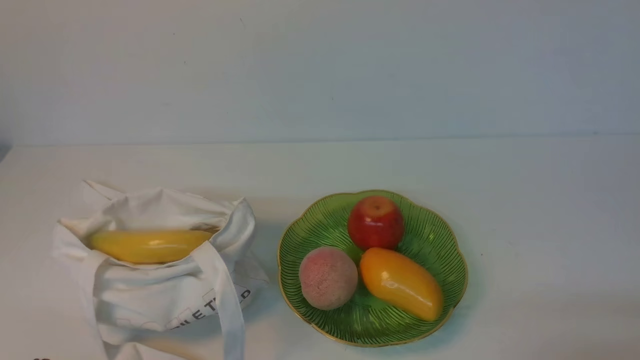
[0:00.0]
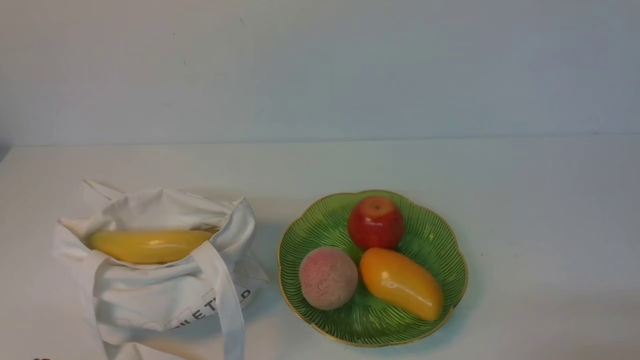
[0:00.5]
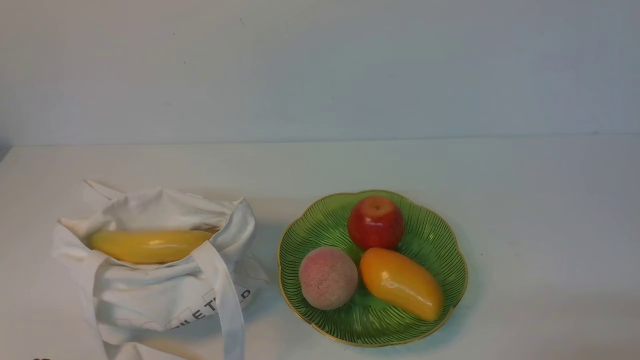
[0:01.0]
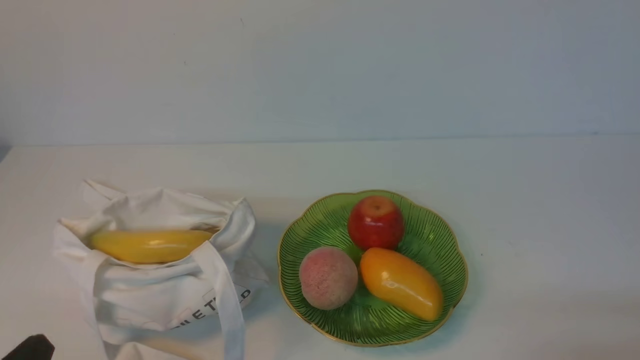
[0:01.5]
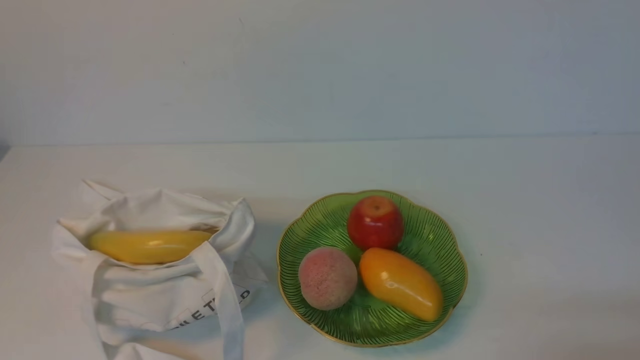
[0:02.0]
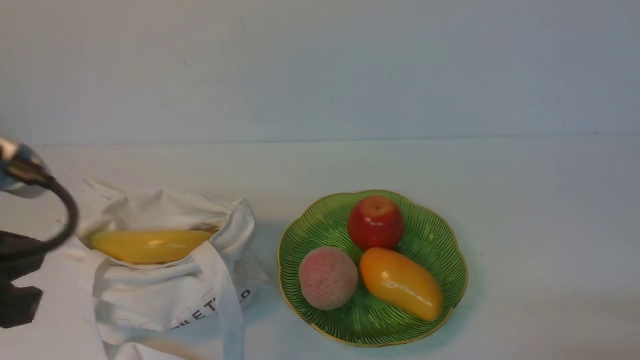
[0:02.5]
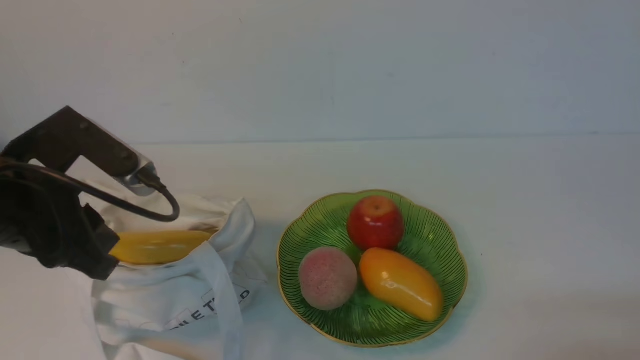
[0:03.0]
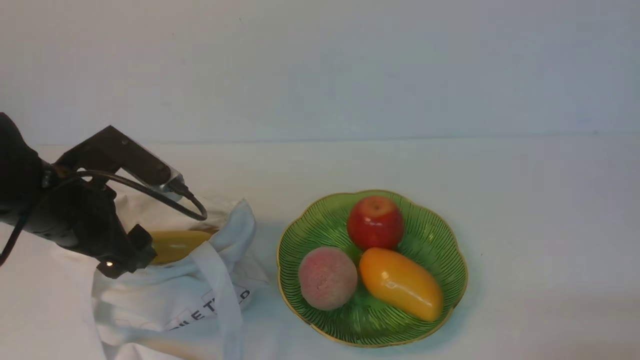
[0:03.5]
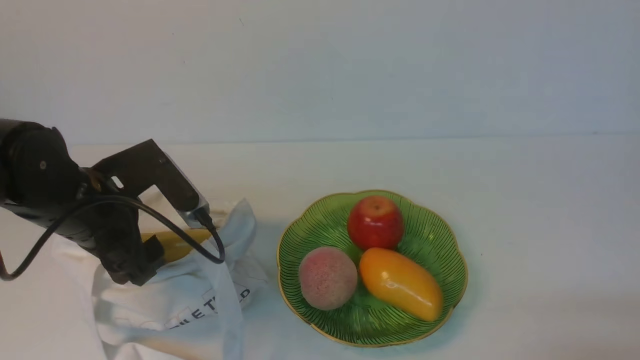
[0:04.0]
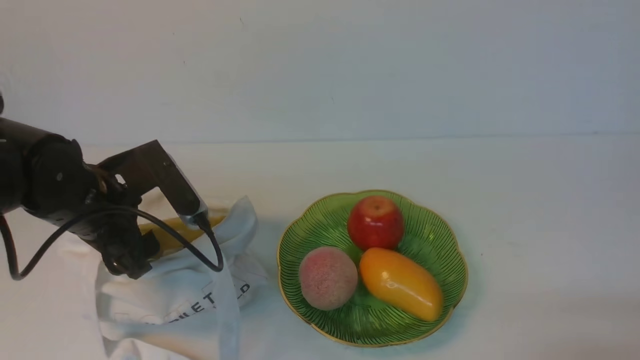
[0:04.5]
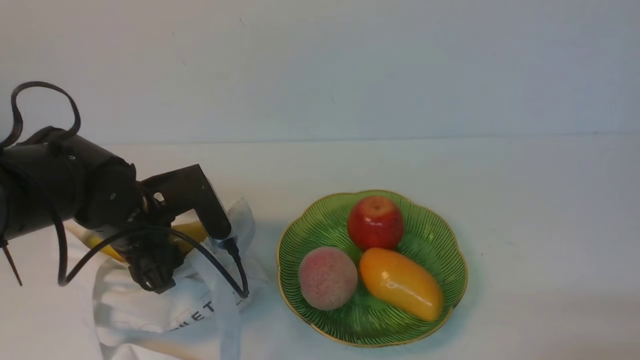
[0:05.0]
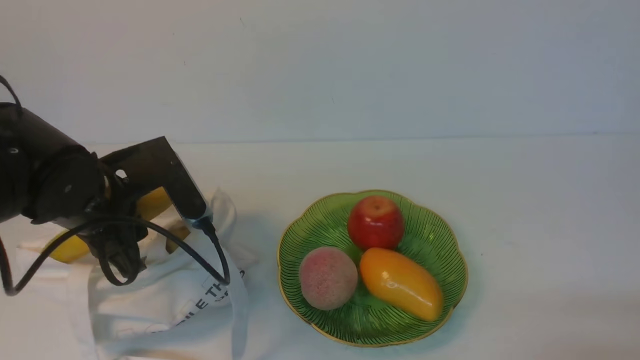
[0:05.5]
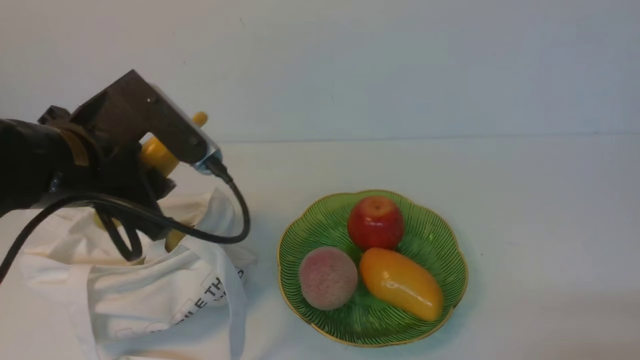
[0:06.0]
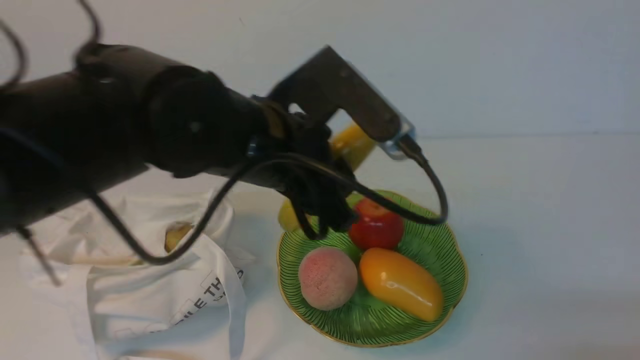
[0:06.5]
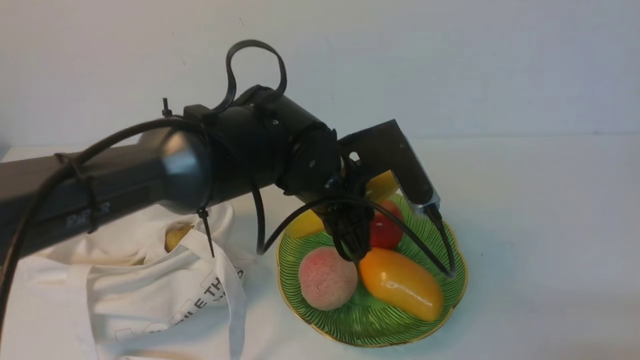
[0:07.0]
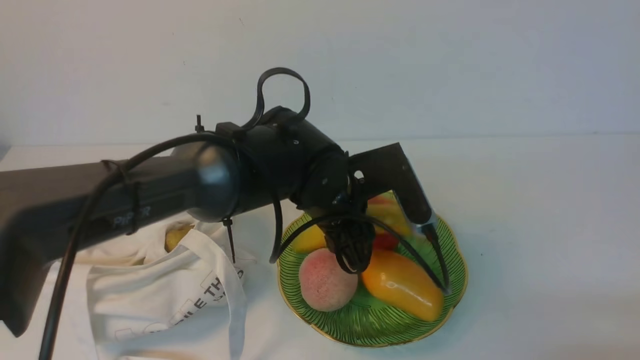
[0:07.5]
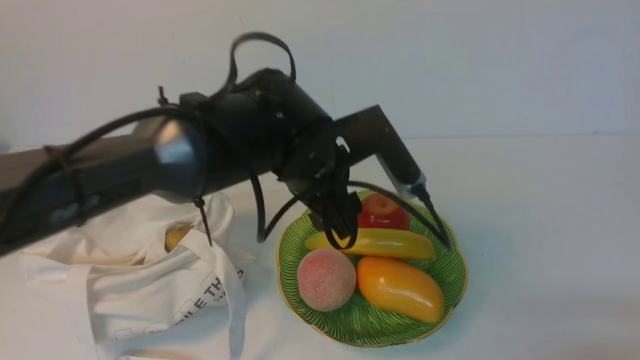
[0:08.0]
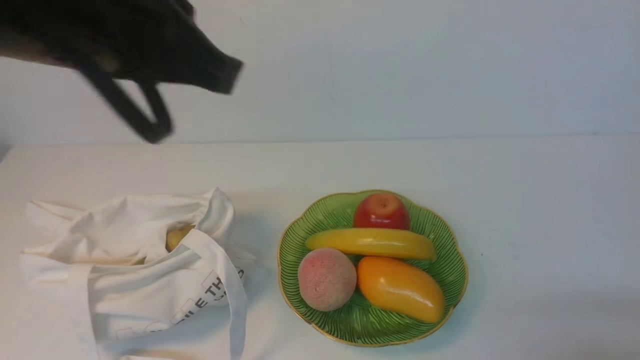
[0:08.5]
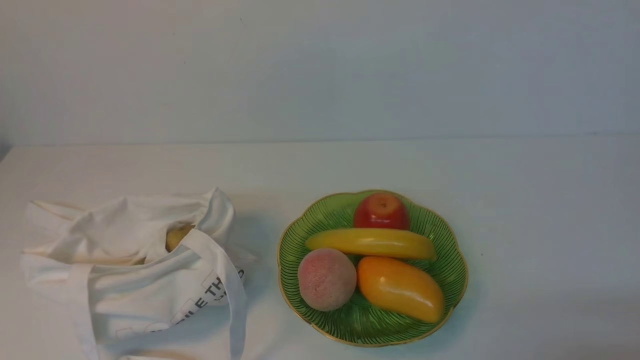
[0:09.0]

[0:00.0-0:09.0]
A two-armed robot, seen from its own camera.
Step, 0:00.0 to 0:05.5: use the left arm to grab a banana from the bag.
Step, 0:06.0 to 0:07.5: use the left arm to put the banana into the empty plate on the right.
0:02.0 to 0:04.5: The left gripper is displaced forward by roughly 25 cm, and opens.
0:04.5 to 0:07.0: The left gripper moves to the right, some 20 cm, and closes up.
0:07.0 to 0:09.0: The left gripper heads upward, backward and to the left, covering roughly 40 cm, and closes its fingers.

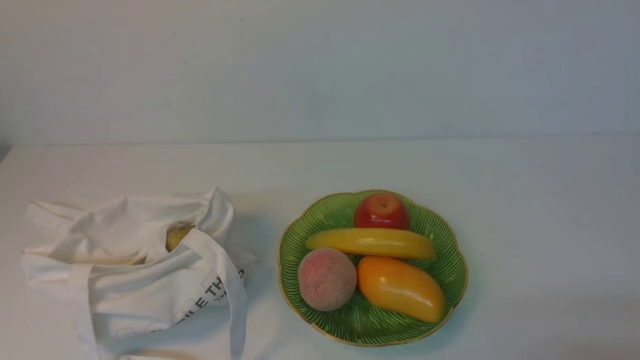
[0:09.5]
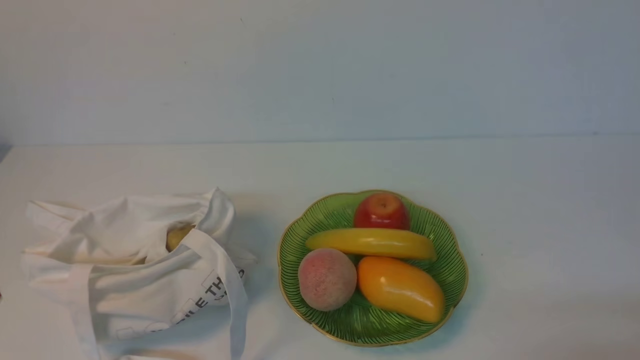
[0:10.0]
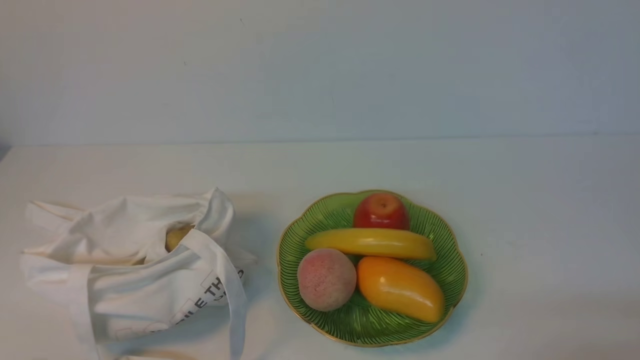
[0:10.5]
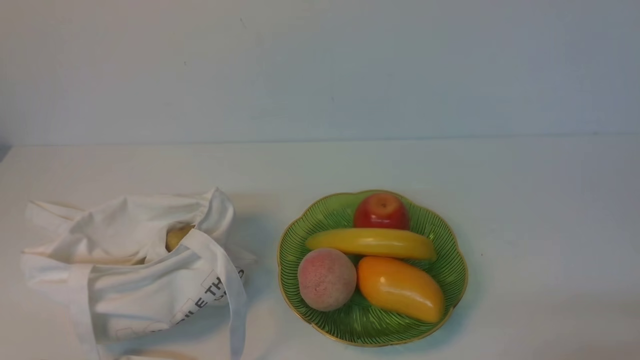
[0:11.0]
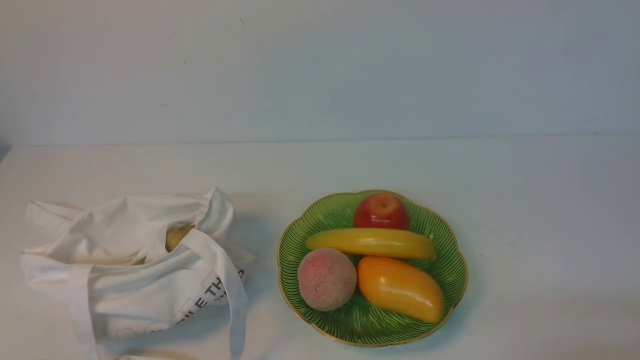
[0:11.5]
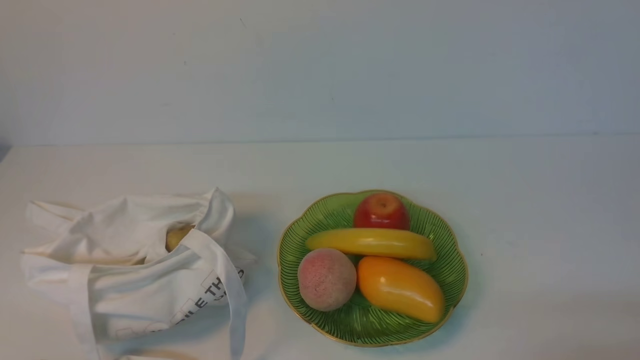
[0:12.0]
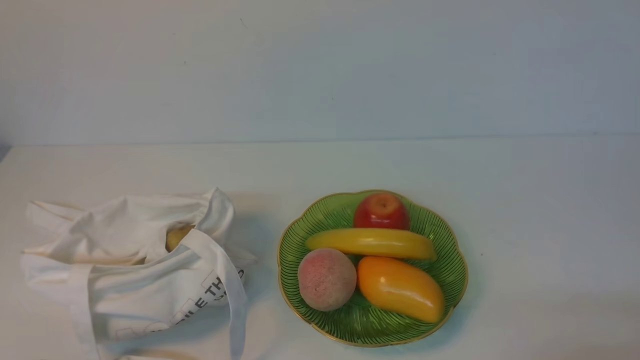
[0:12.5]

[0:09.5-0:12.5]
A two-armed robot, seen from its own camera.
0:11.0 to 0:12.5: Both grippers stay put.

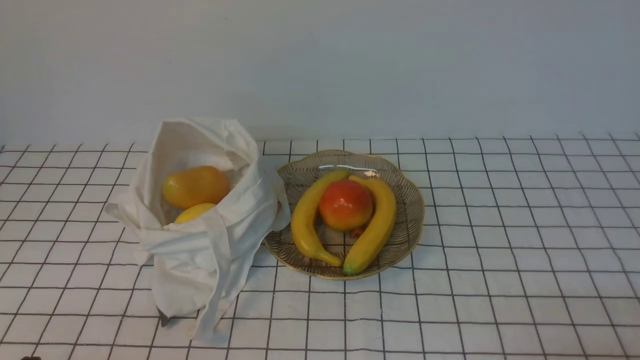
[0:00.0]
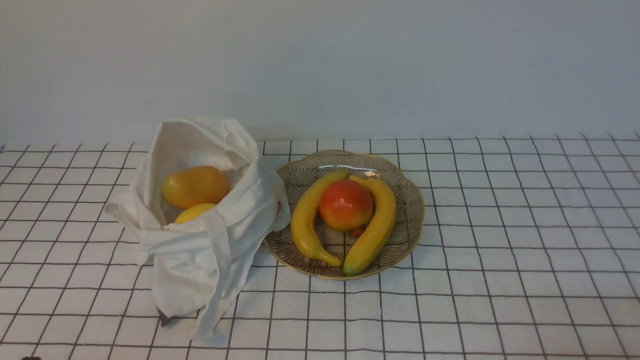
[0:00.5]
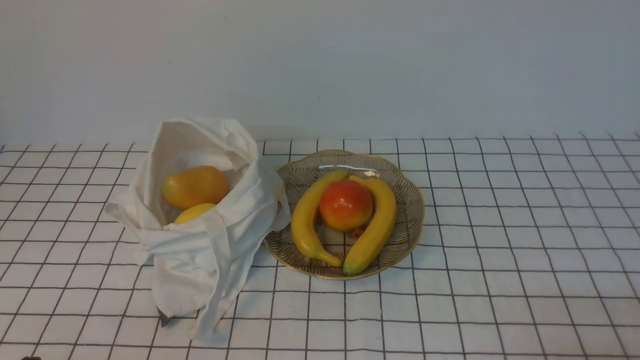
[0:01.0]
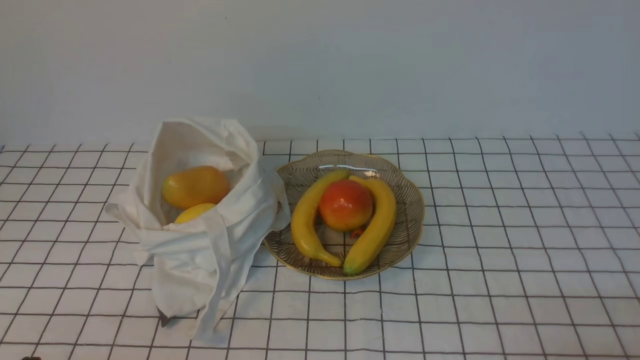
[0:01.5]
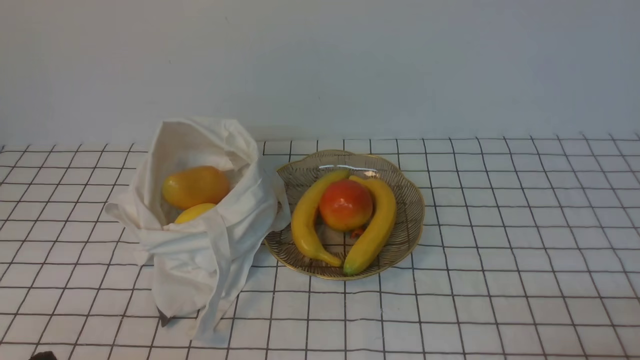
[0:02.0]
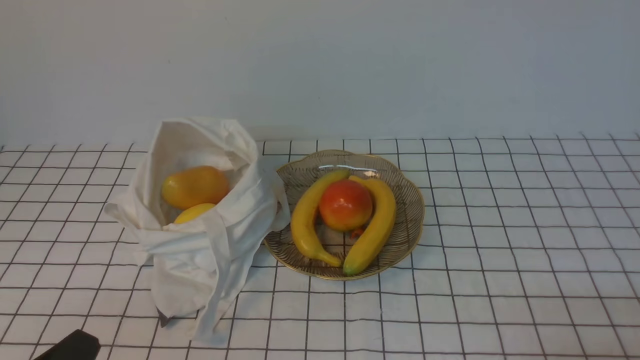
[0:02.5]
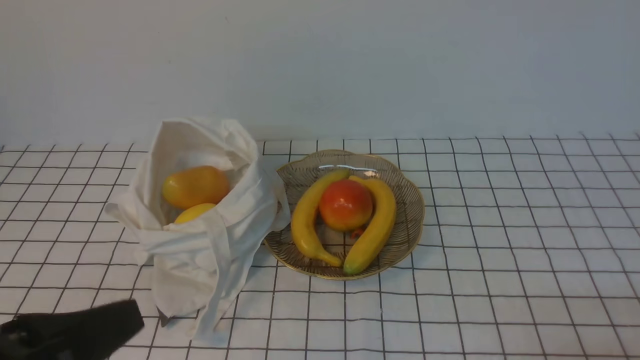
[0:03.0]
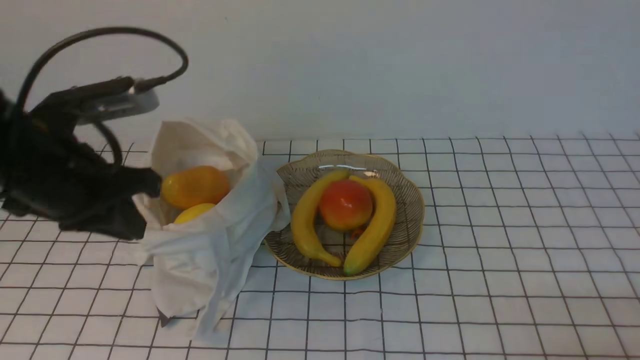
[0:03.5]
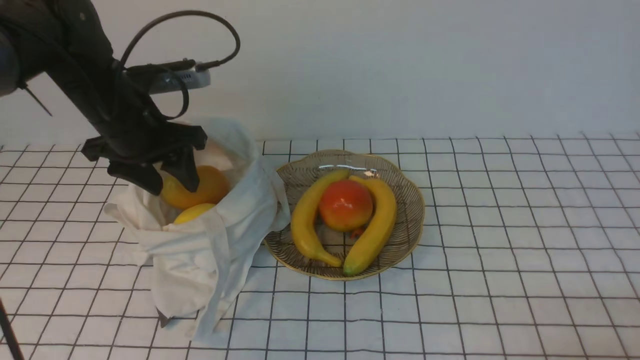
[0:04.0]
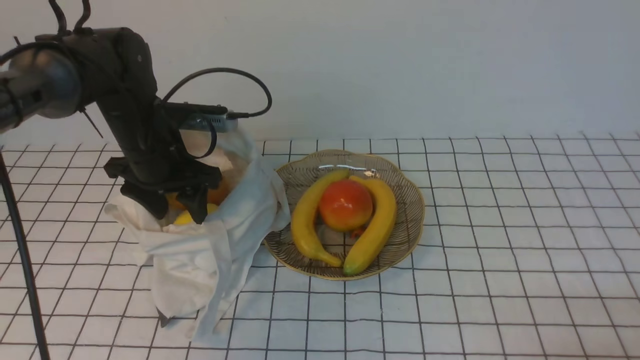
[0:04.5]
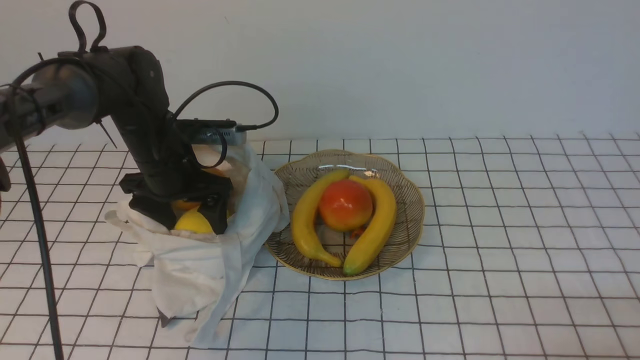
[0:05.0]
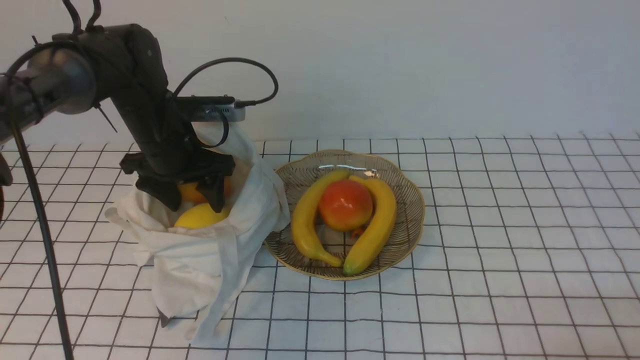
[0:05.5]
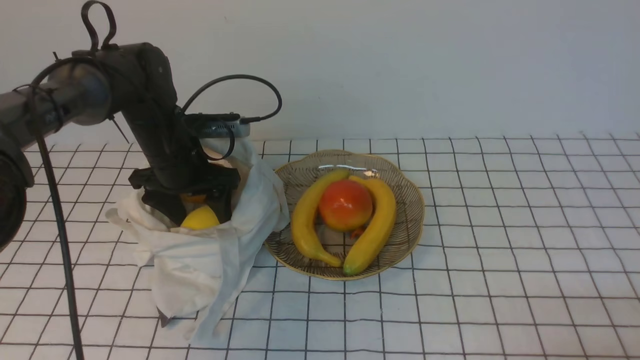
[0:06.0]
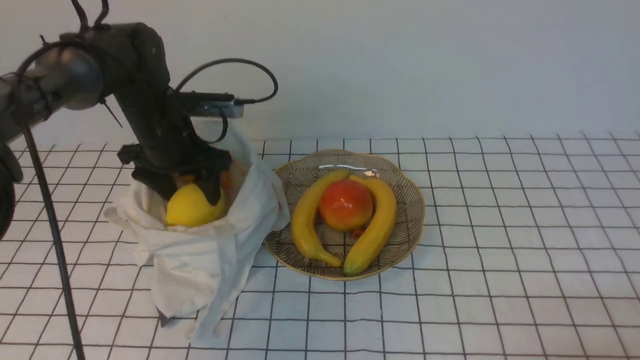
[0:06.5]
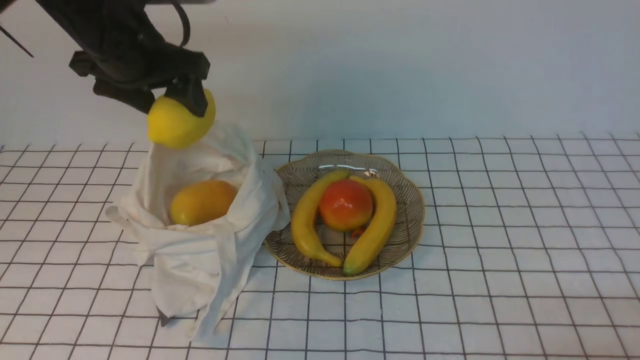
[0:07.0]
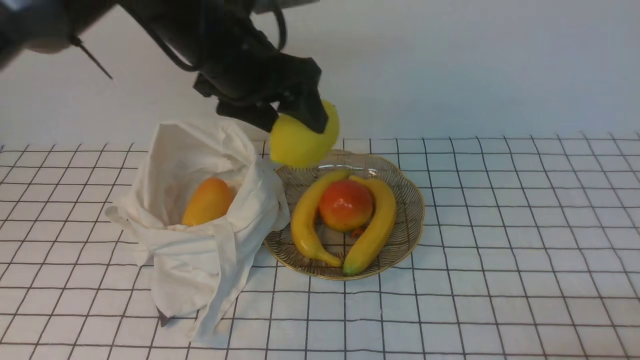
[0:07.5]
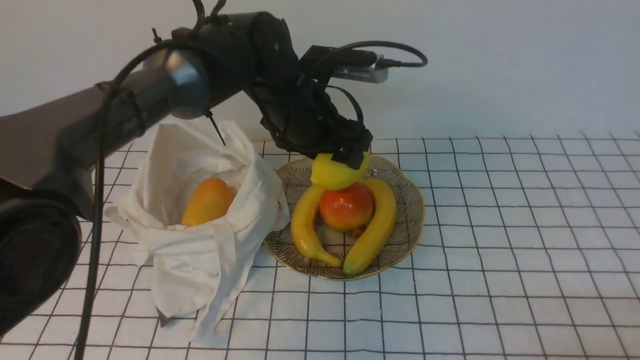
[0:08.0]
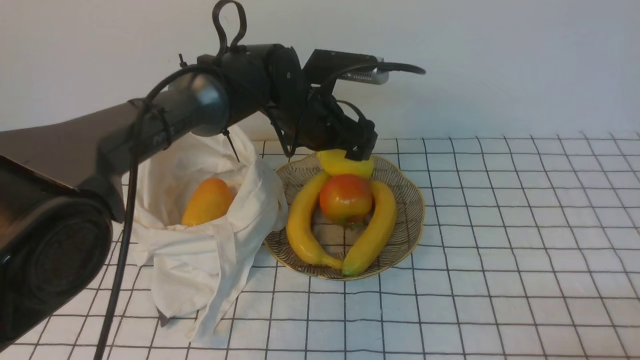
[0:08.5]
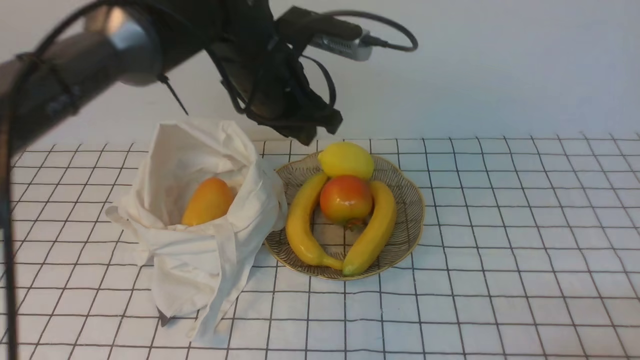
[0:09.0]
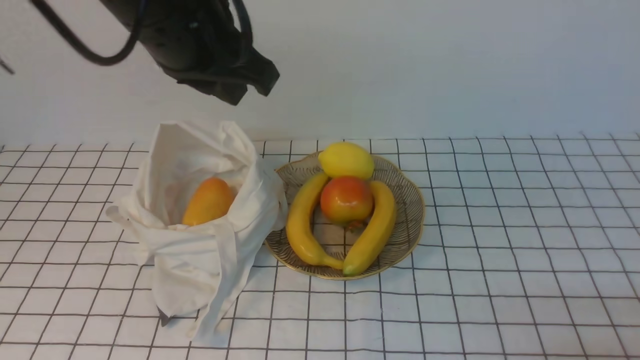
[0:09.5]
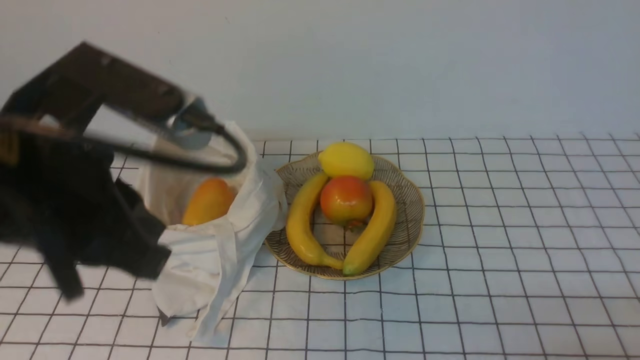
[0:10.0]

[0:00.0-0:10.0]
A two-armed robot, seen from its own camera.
Step, 0:00.0 to 0:06.5: use the left arm to grab a lemon from the bag.
Step, 0:07.0 to 0:08.5: use the left arm to put the lemon into the empty plate on the right.
0:02.0 to 0:04.0: The left gripper moves forward, about 35 cm, and opens up.
0:04.0 to 0:06.0: The left gripper heads downward, covering about 10 cm.
0:06.0 to 0:08.0: The left gripper travels to the right and upward by roughly 15 cm.
0:08.0 to 0:10.0: The left gripper moves backward, to the left and upward, some 25 cm, and closes its fingers.
